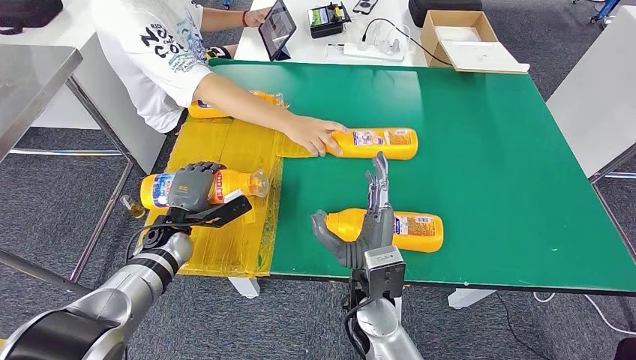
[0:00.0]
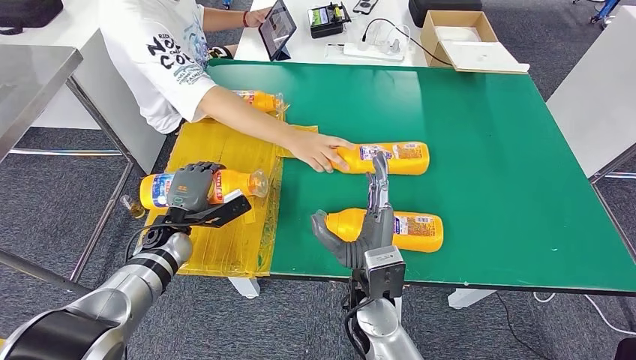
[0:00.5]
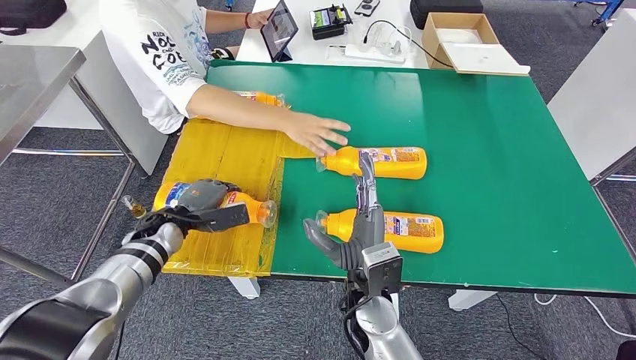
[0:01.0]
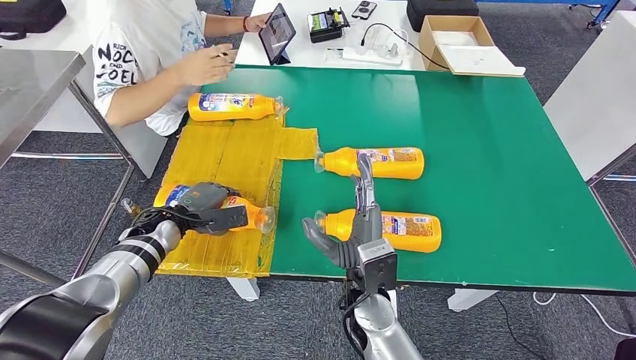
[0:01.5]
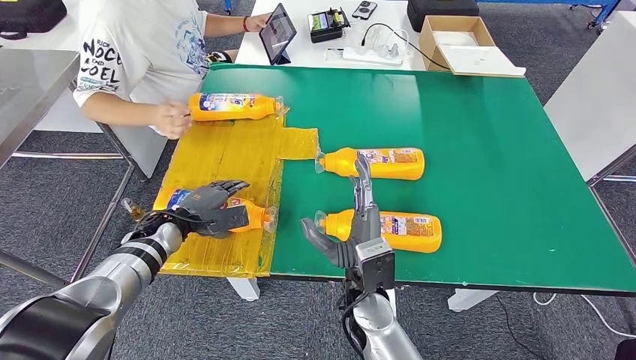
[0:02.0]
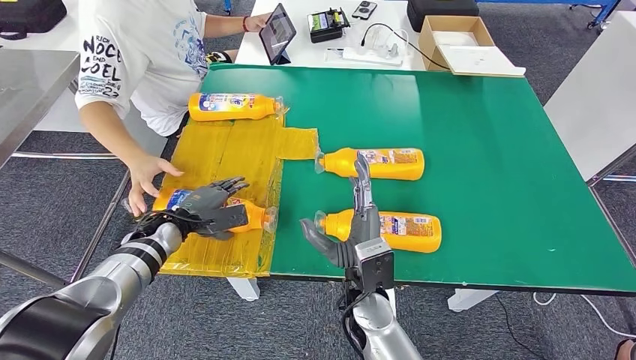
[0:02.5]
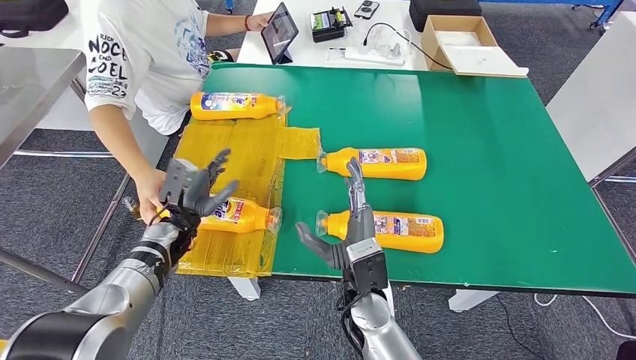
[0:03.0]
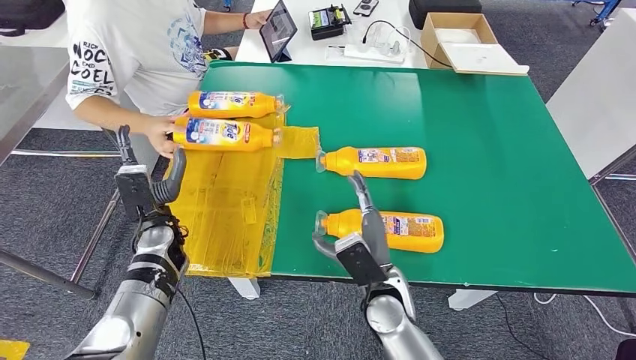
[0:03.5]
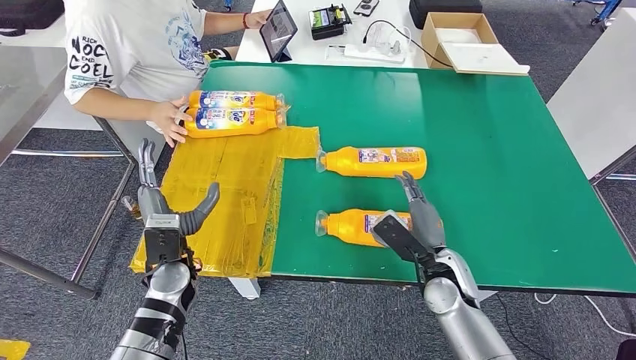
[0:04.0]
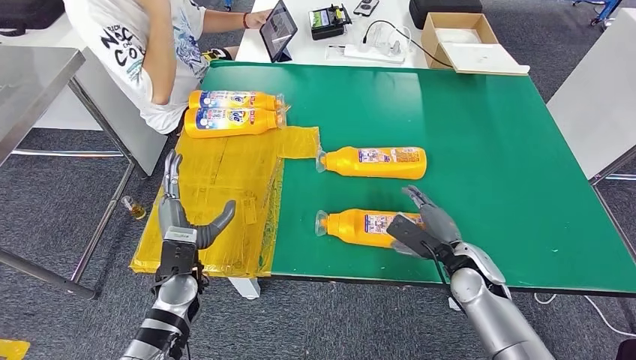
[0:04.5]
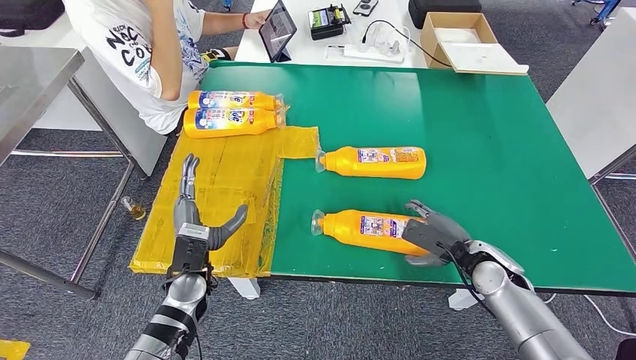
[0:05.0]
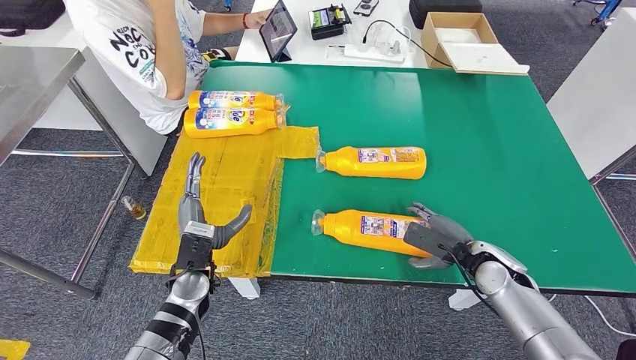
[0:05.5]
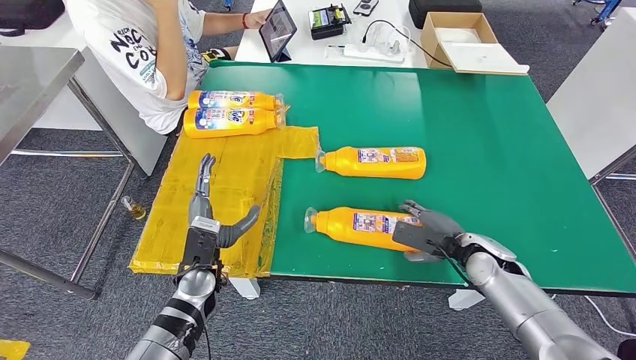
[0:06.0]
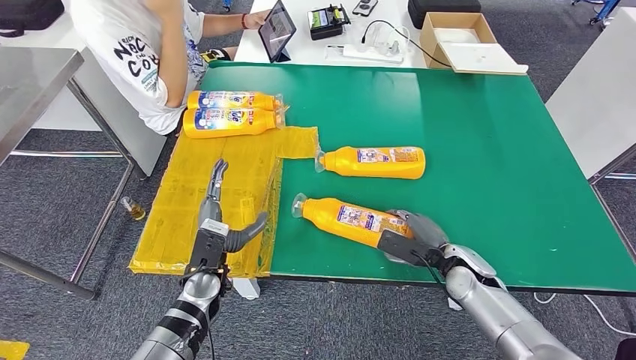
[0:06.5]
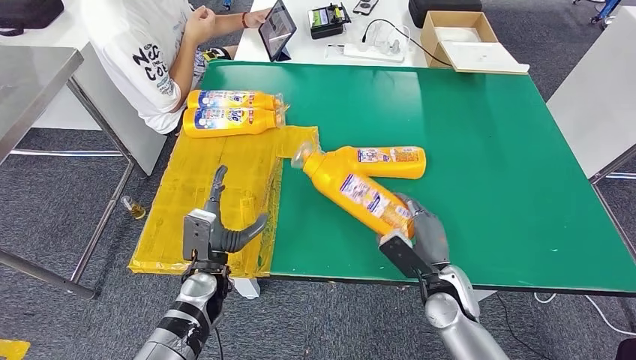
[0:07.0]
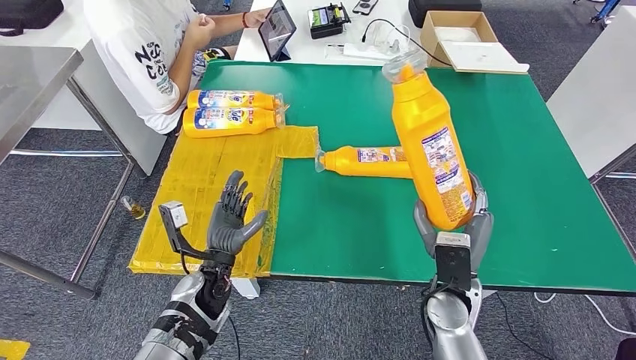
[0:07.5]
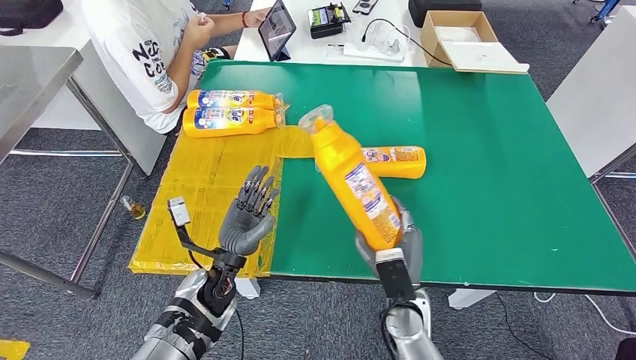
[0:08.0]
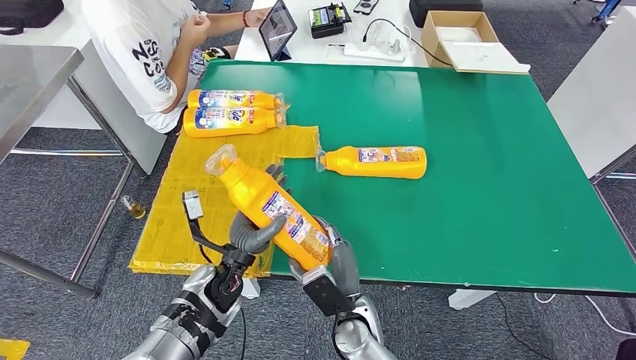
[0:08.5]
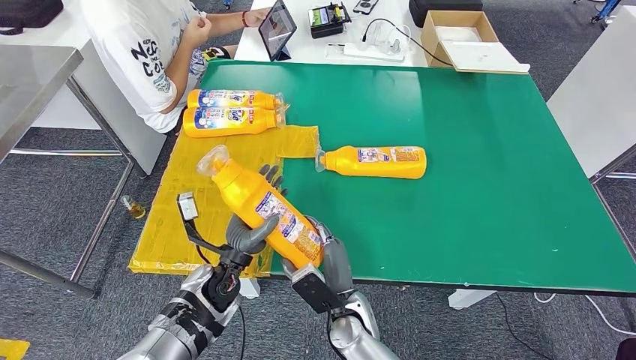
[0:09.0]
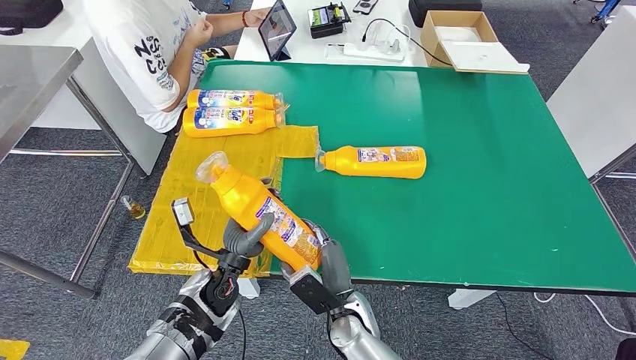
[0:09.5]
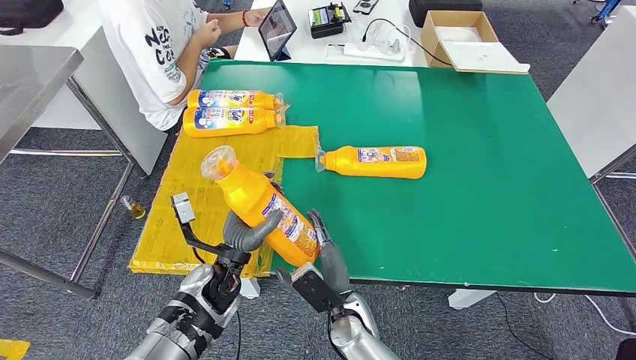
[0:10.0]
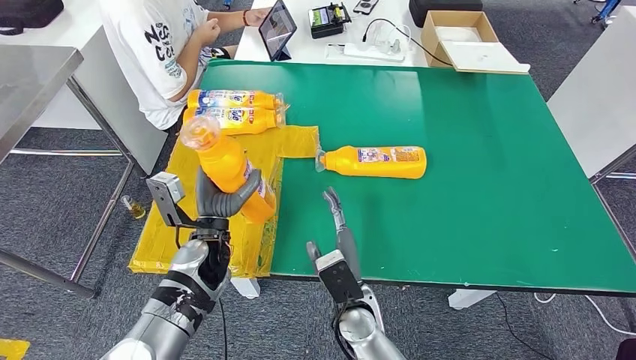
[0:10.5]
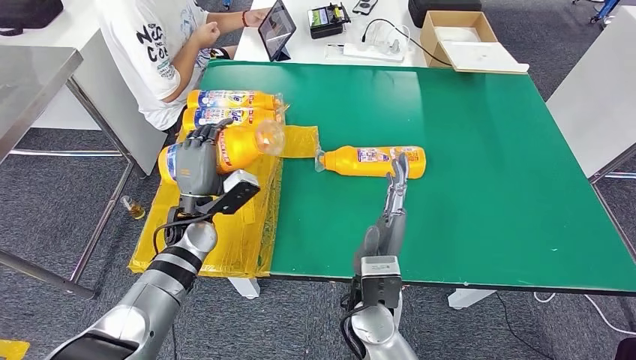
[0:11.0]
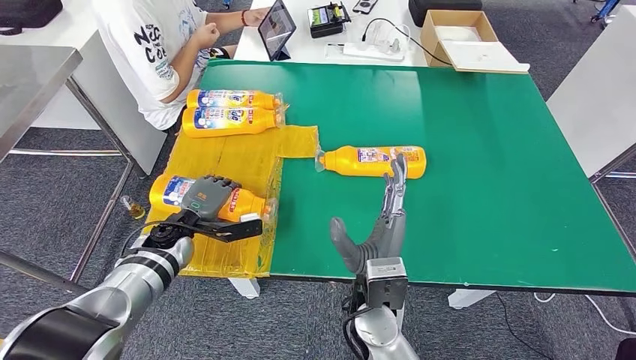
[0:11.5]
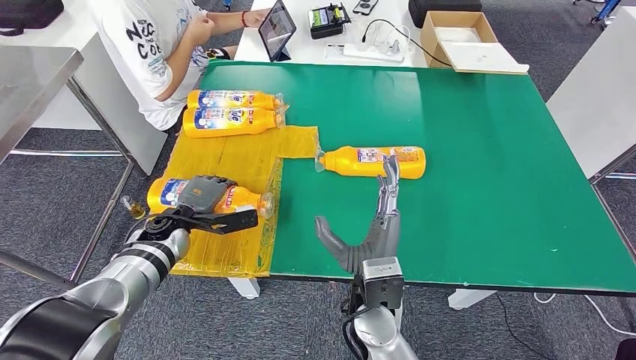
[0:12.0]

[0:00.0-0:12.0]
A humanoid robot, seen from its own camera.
Step, 0:00.0 to 0:03.5: Flip the fast-moving consumer goods bottle to the front side.
Step, 0:04.0 to 0:07.5: Pick up the fast-moving consumer goods bottle from the table.
0:04.0 to 0:06.0: The right hand goes roughly 10 cm to the right; the left hand changes place by roughly 5 cm.
0:06.0 to 0:08.0: The right hand goes approximately 20 cm to the left and backward.
0:08.0 to 0:10.0: The right hand moves to the left, approximately 10 cm.
0:10.0 to 0:12.0: The right hand is displaced upward by roughly 10 cm, while the left hand is displaced to the left and forward by approximately 15 cm.

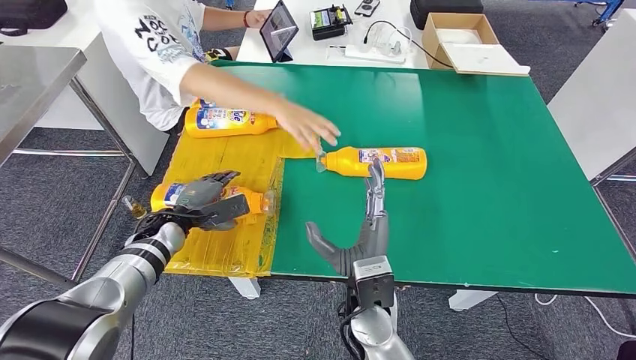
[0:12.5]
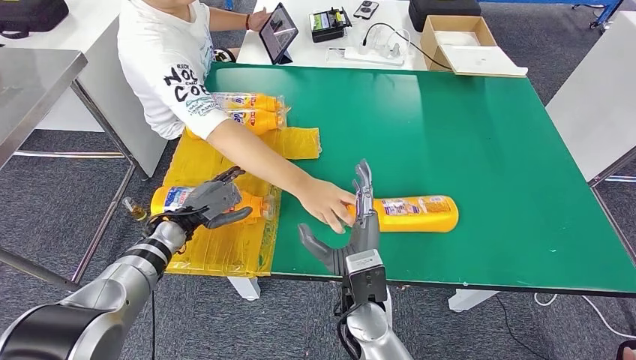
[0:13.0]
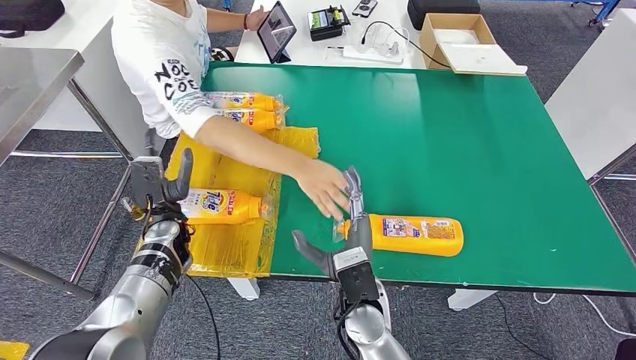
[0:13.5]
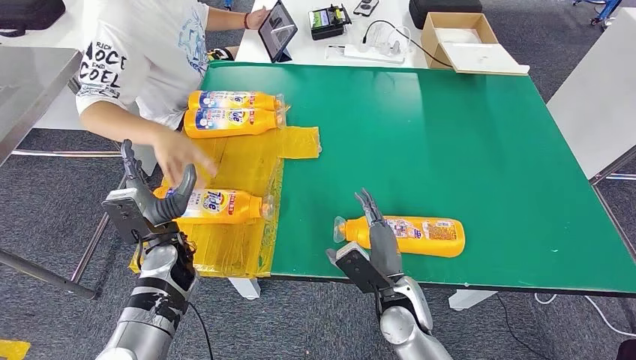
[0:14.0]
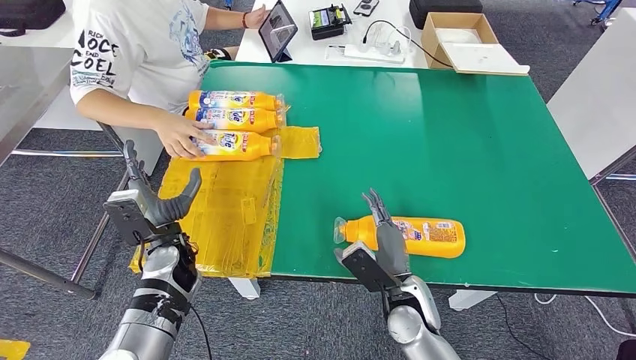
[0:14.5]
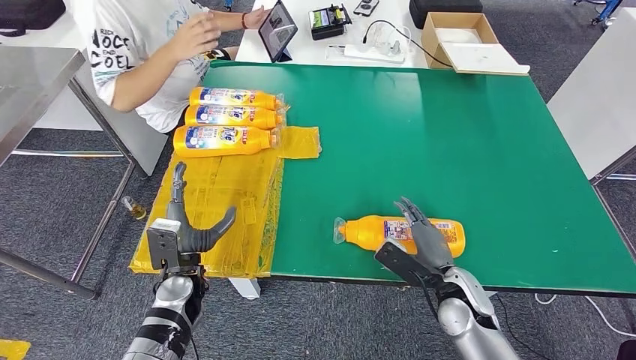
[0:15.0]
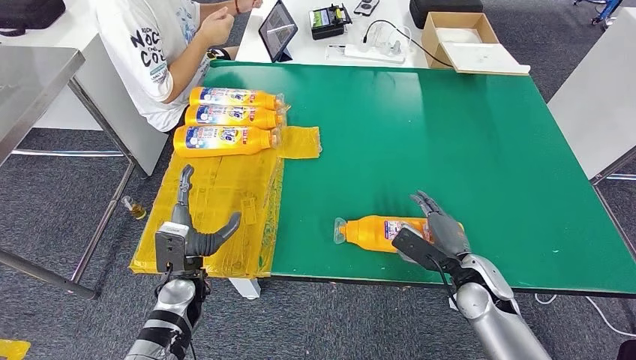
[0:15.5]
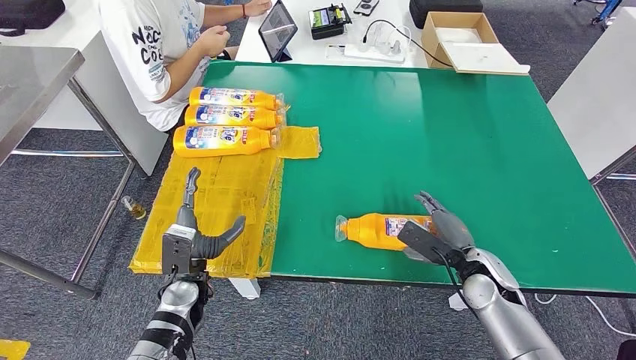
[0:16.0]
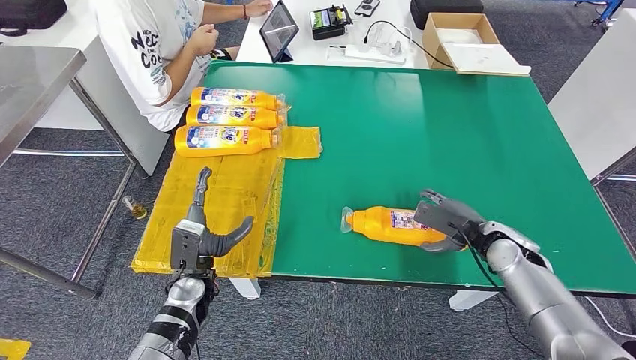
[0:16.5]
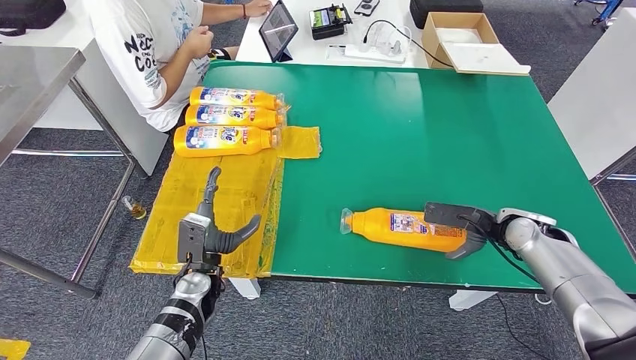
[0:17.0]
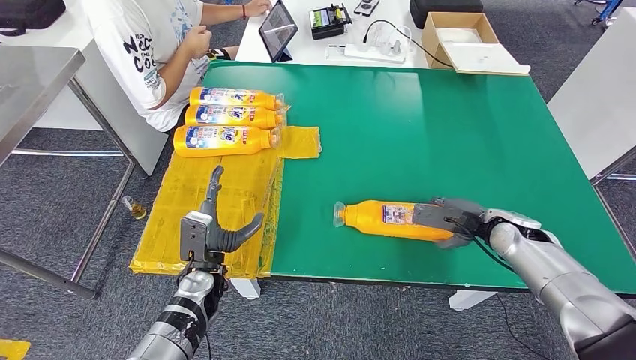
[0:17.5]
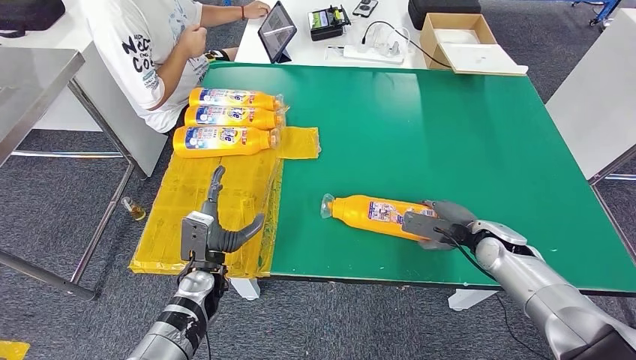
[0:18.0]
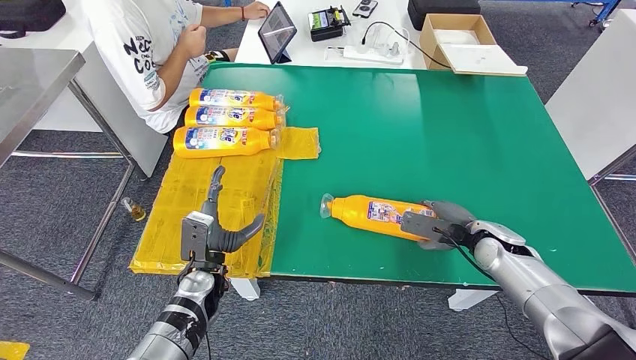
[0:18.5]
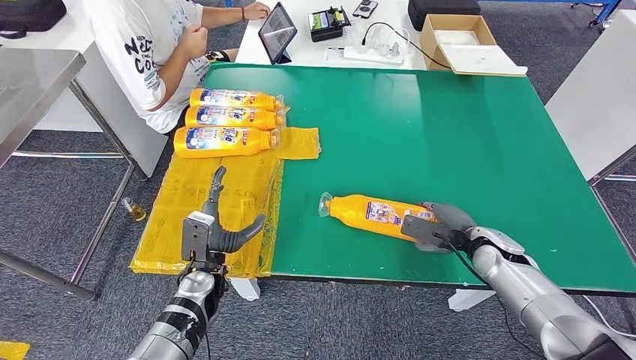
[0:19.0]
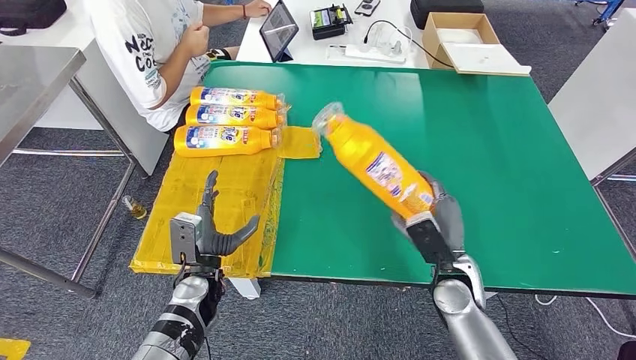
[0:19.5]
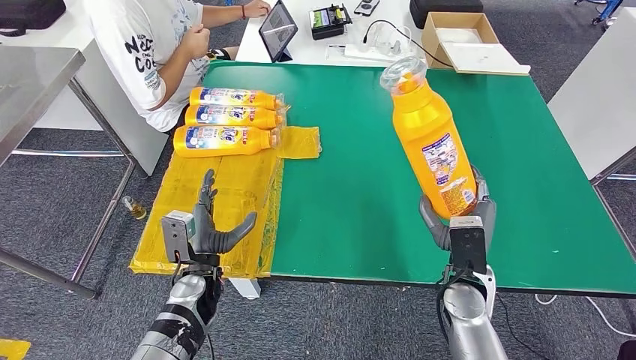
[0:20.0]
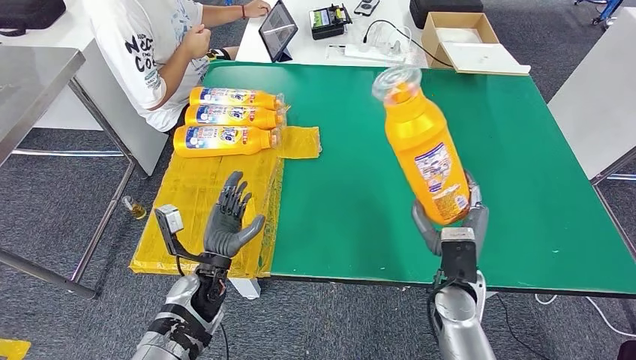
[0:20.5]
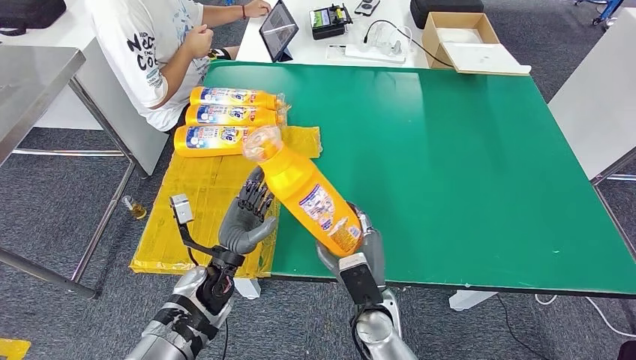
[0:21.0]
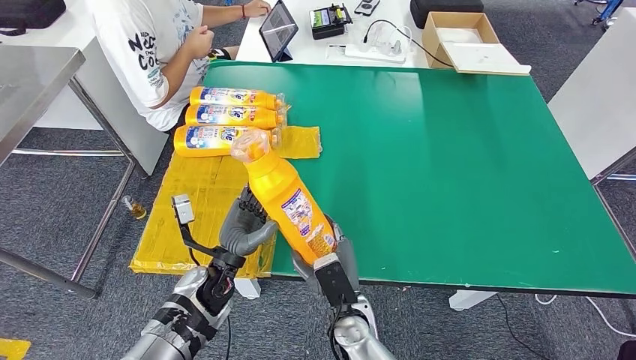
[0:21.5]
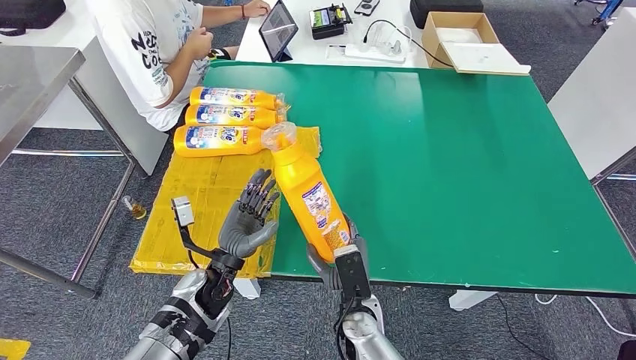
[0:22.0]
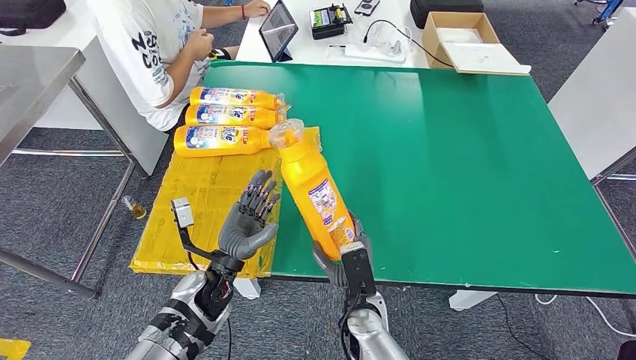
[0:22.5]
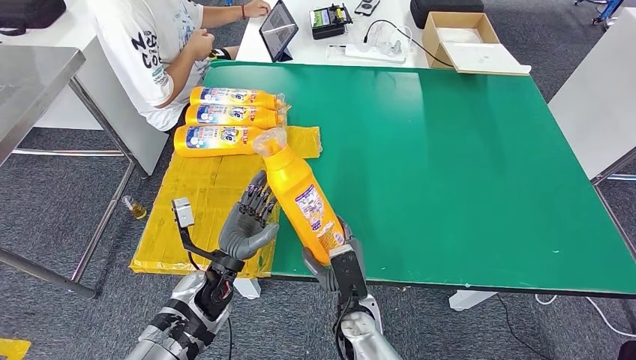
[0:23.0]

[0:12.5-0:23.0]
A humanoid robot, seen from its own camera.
Step, 0:13.5 to 0:20.0: Pick up the fast-moving consumer goods bottle from the table.
0:21.0 to 0:23.0: The hands make only small movements.
